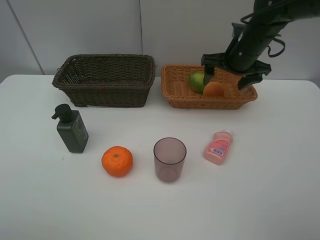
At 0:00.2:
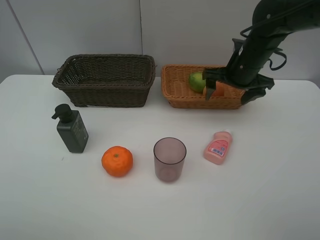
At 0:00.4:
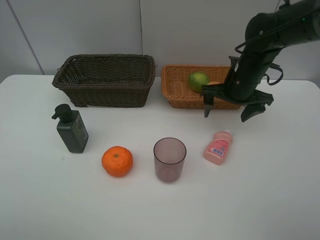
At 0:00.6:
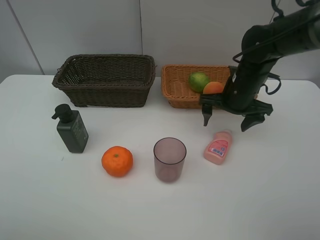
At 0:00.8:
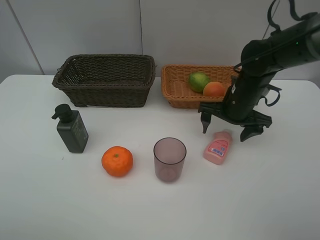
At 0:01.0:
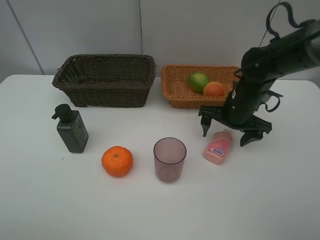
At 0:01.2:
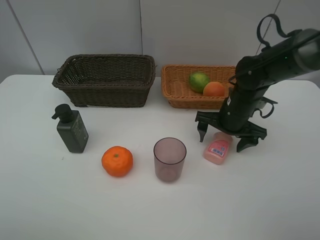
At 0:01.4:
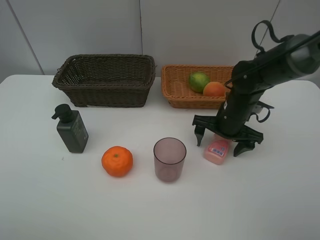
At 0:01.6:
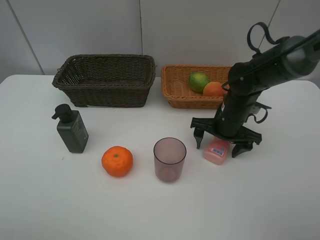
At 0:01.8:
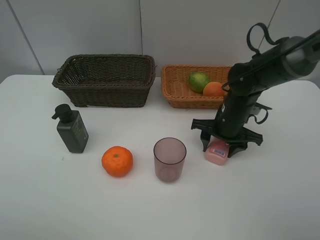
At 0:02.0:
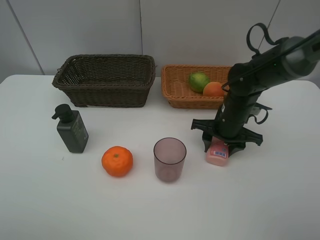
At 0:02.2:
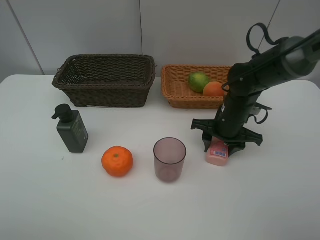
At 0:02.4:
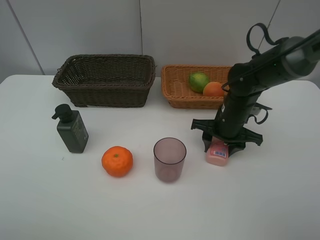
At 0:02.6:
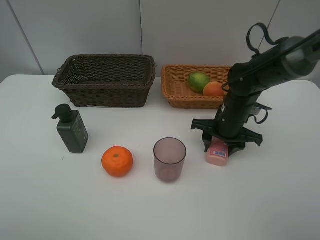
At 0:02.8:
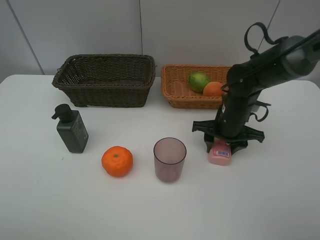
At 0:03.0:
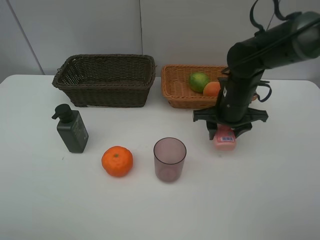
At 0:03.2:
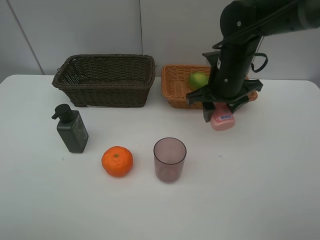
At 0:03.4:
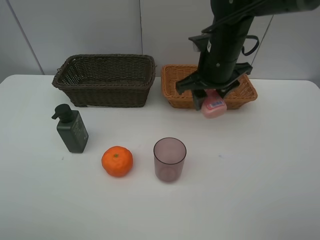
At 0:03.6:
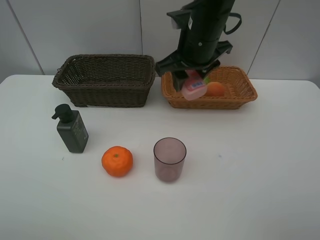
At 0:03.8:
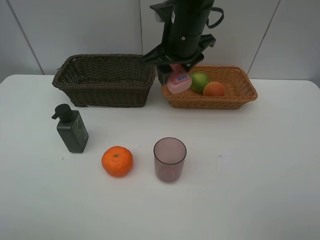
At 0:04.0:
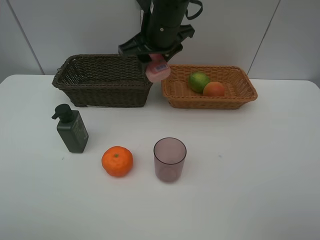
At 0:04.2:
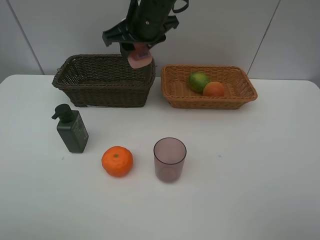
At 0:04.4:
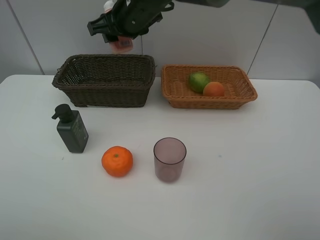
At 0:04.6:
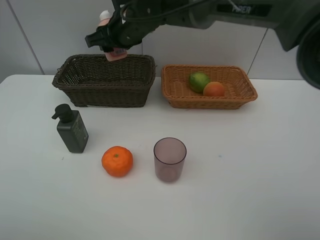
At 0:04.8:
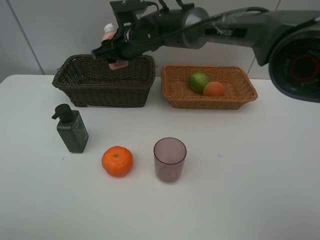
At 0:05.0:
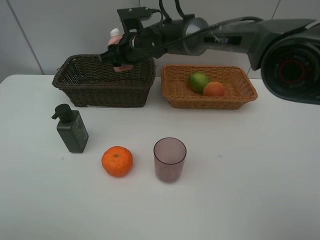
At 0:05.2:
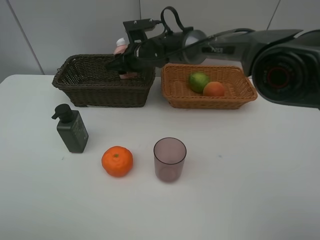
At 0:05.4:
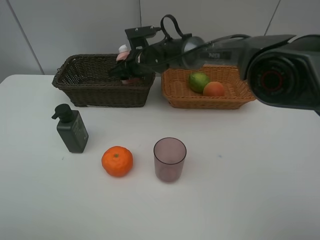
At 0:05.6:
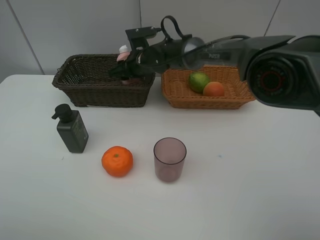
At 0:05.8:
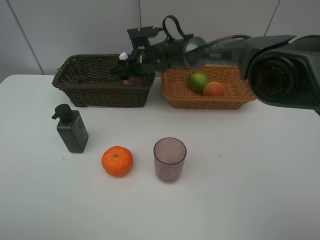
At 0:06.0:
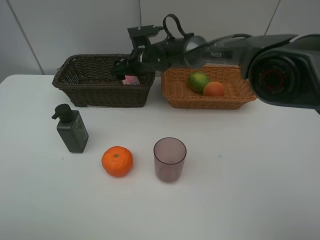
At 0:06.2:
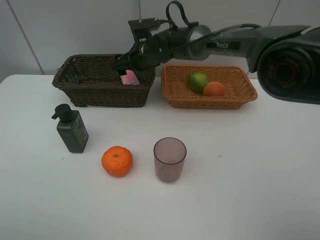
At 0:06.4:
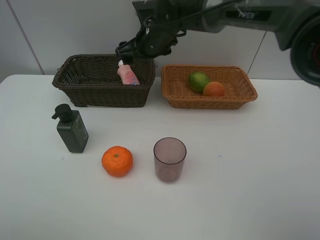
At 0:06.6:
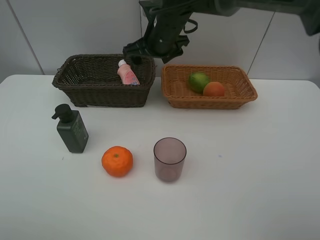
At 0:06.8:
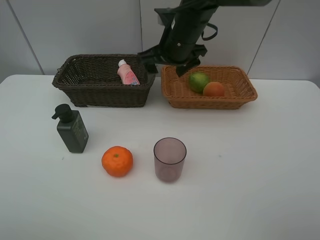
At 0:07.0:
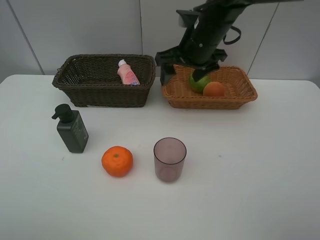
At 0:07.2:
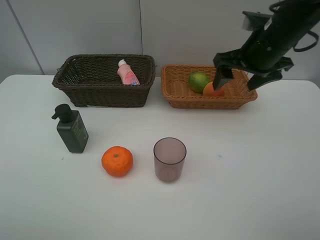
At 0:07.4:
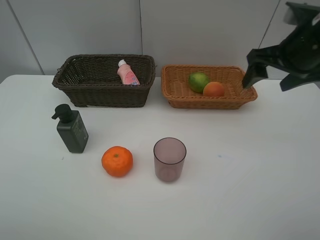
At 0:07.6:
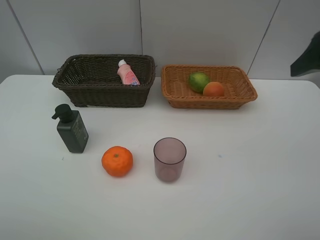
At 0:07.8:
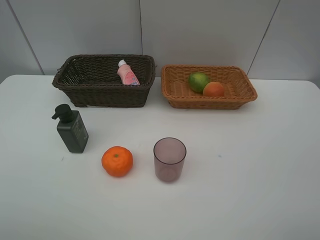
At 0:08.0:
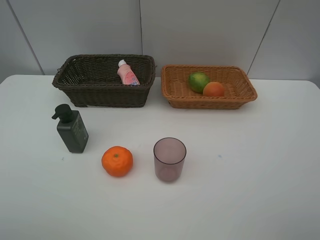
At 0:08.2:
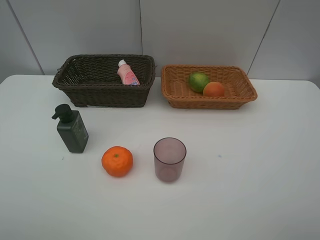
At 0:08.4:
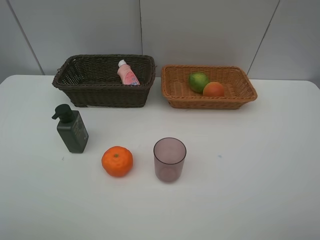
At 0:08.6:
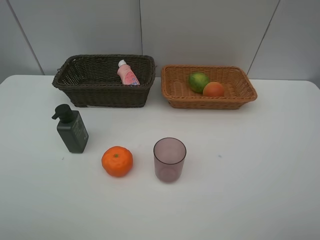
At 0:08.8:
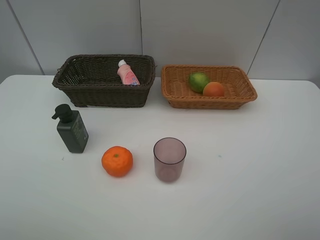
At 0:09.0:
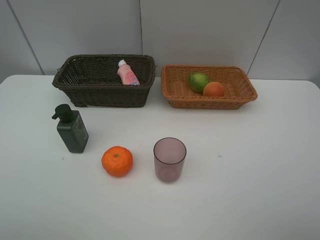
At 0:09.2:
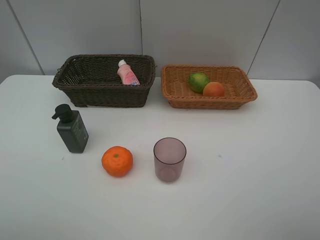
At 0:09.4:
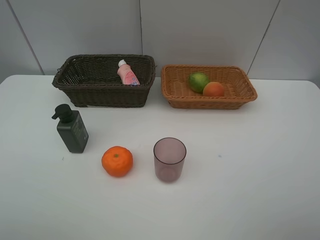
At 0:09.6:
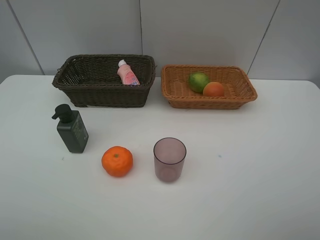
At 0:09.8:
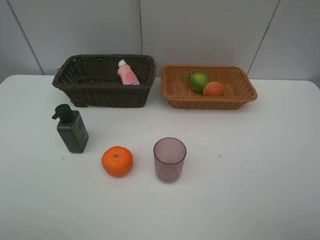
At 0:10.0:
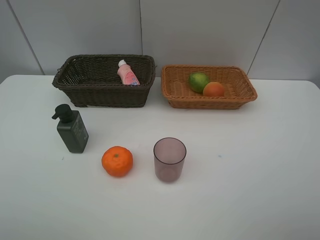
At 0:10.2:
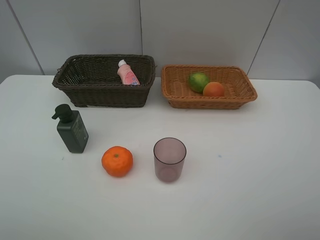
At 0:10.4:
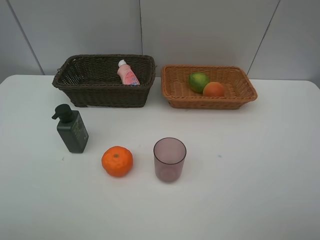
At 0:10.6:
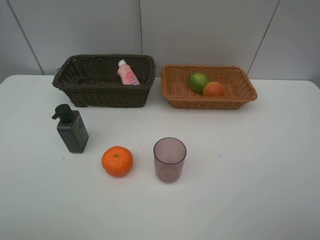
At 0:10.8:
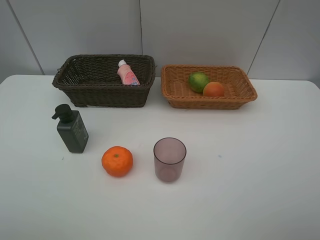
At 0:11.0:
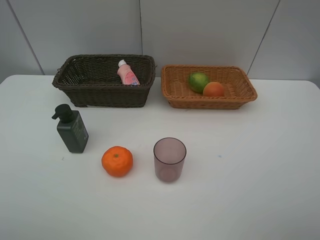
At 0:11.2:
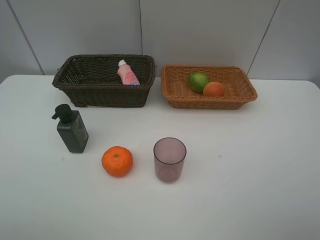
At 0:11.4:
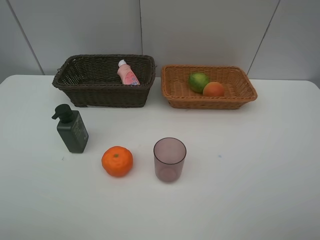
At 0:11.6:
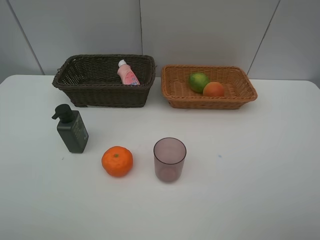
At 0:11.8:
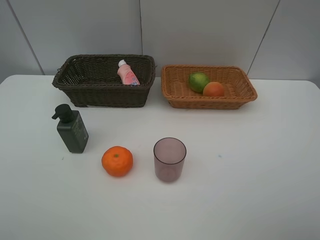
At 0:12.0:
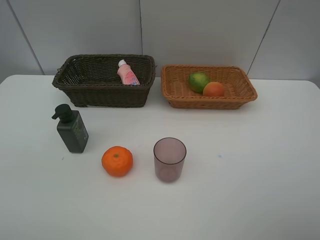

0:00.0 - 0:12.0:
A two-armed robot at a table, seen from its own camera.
Task of the whole recording: place multiple objects separately in different baskets.
0:00.0 - 0:01.6: The right gripper goes approximately 15 cm downward and backward.
0:01.6 - 0:03.0: The right gripper is displaced upward by approximately 5 cm, and closes.
0:03.0 - 0:04.4: The right gripper heads to the left and upward, covering about 25 cm.
0:04.4 - 0:06.0: The right gripper travels downward and forward by some 15 cm, and opens up.
0:06.0 - 0:07.6: The right gripper travels to the right, backward and upward by about 50 cm.
0:07.6 - 0:09.0: The right gripper goes approximately 20 cm backward.

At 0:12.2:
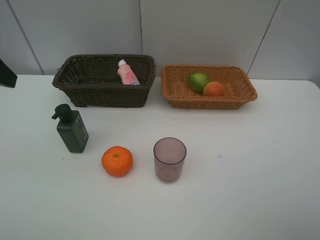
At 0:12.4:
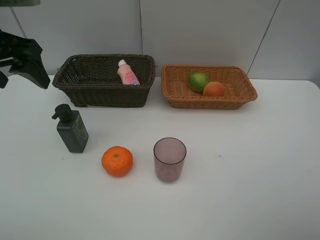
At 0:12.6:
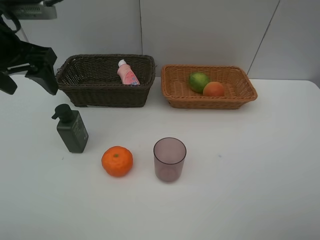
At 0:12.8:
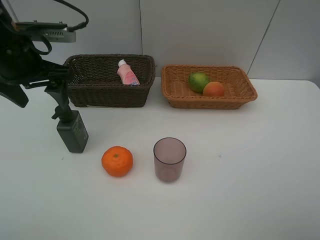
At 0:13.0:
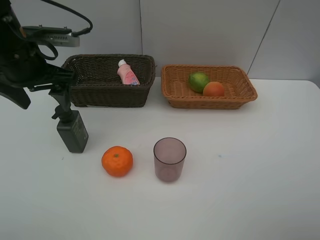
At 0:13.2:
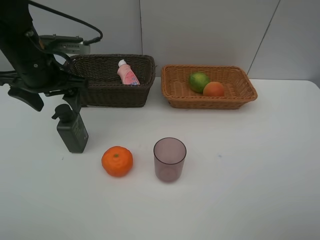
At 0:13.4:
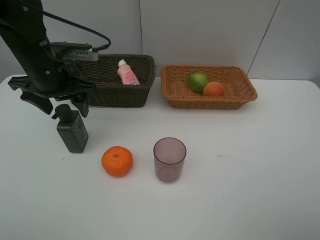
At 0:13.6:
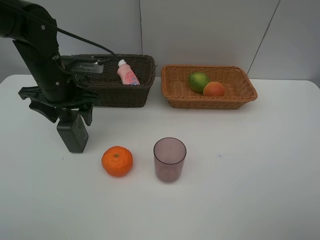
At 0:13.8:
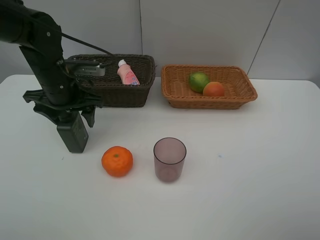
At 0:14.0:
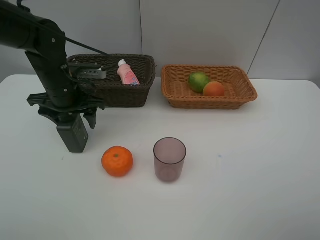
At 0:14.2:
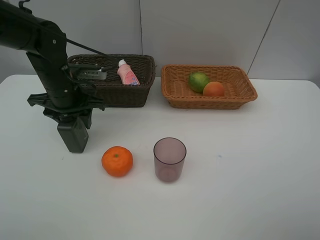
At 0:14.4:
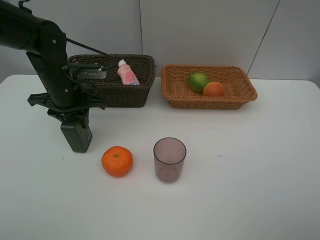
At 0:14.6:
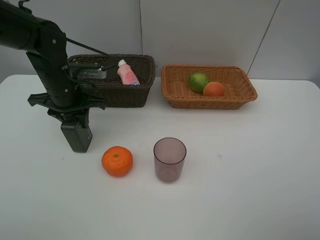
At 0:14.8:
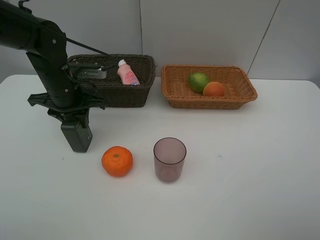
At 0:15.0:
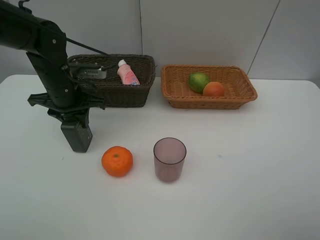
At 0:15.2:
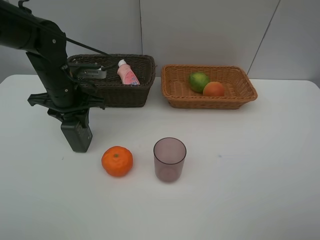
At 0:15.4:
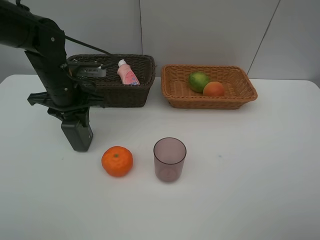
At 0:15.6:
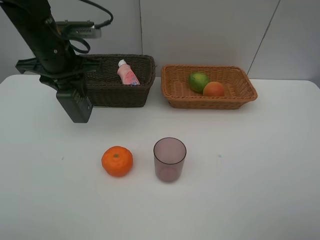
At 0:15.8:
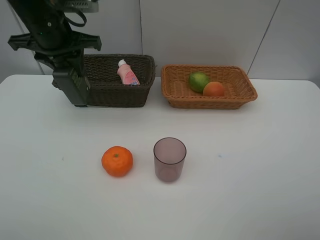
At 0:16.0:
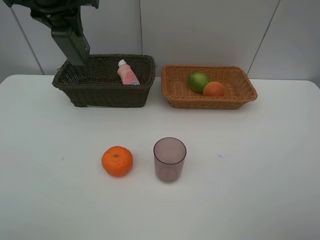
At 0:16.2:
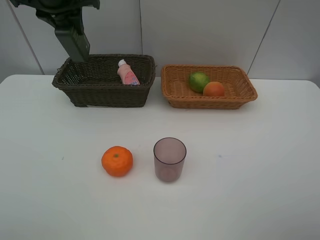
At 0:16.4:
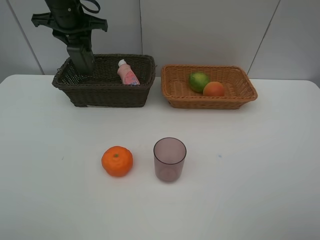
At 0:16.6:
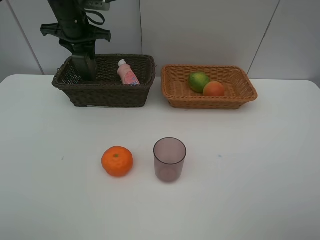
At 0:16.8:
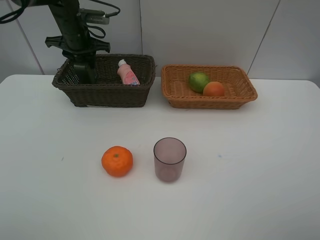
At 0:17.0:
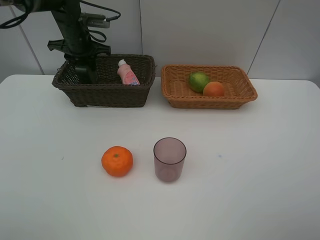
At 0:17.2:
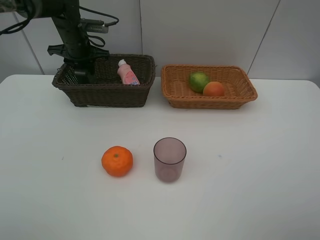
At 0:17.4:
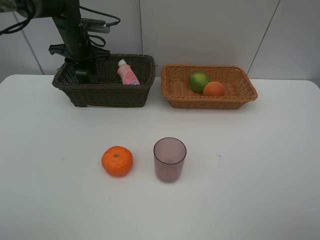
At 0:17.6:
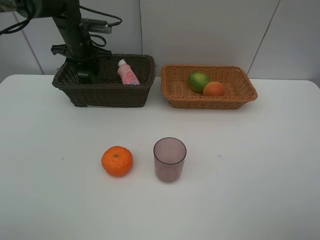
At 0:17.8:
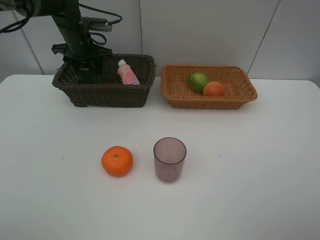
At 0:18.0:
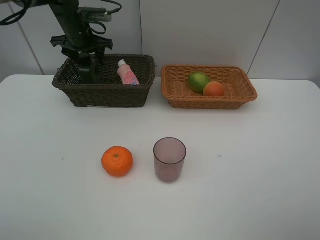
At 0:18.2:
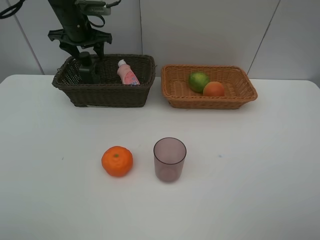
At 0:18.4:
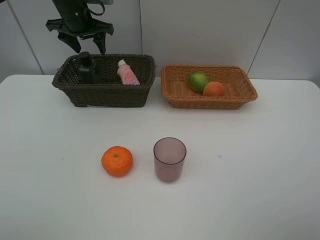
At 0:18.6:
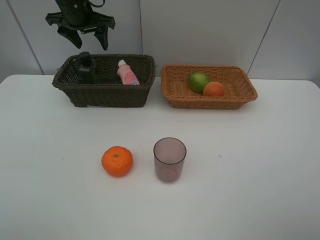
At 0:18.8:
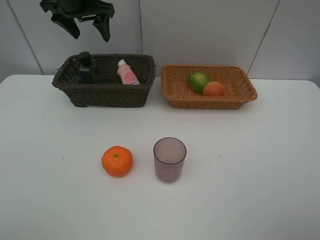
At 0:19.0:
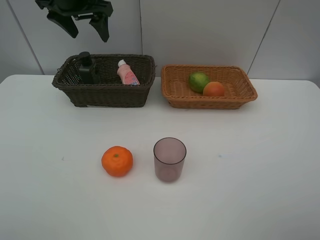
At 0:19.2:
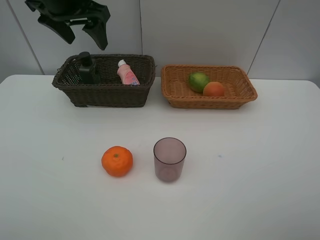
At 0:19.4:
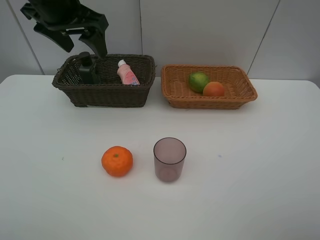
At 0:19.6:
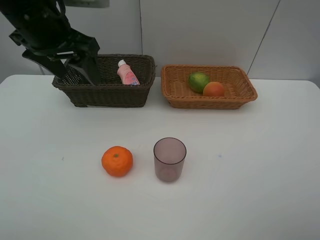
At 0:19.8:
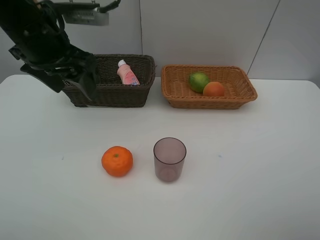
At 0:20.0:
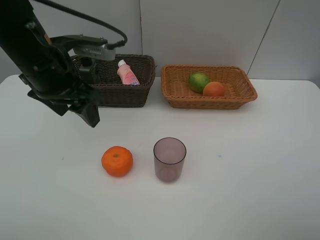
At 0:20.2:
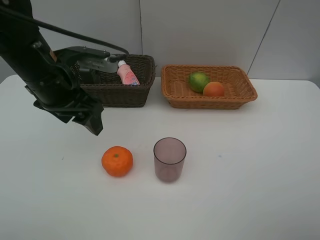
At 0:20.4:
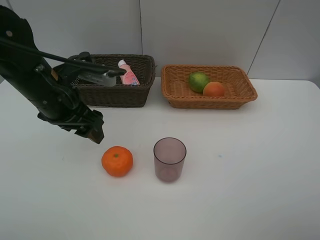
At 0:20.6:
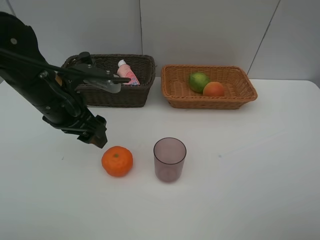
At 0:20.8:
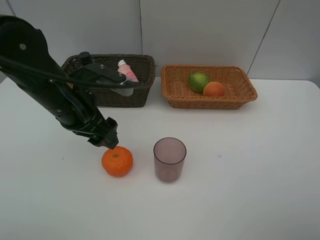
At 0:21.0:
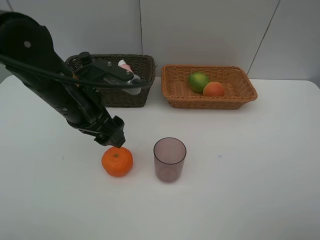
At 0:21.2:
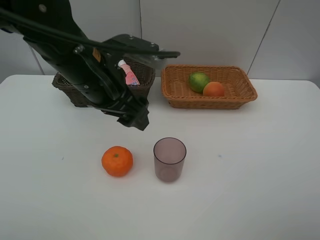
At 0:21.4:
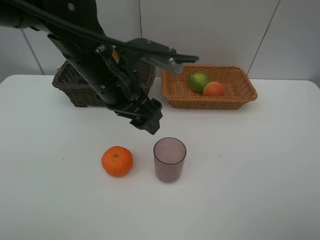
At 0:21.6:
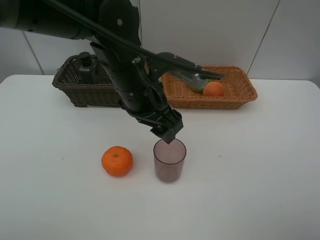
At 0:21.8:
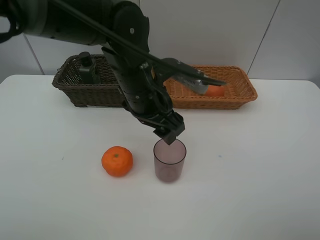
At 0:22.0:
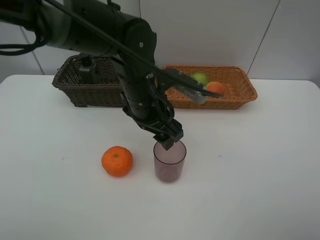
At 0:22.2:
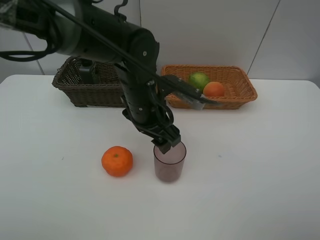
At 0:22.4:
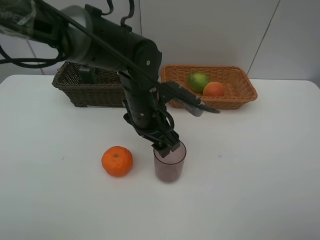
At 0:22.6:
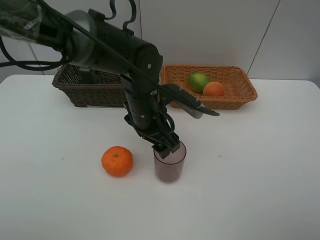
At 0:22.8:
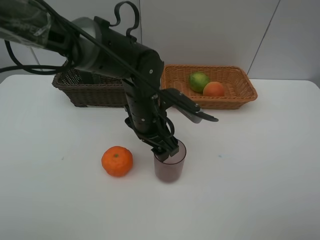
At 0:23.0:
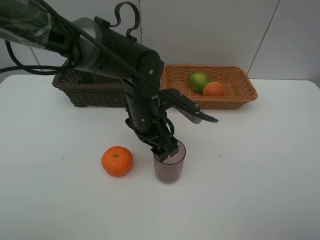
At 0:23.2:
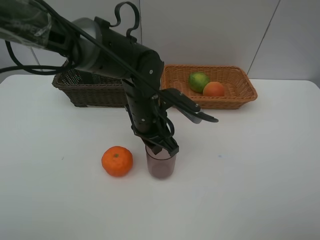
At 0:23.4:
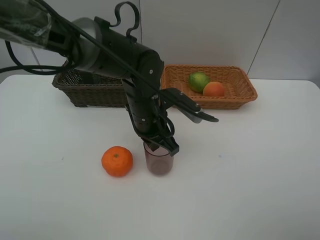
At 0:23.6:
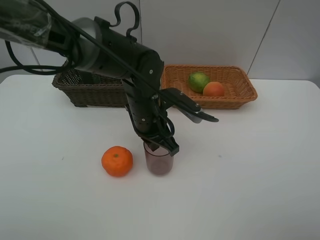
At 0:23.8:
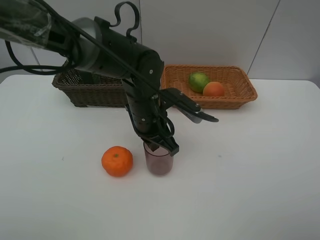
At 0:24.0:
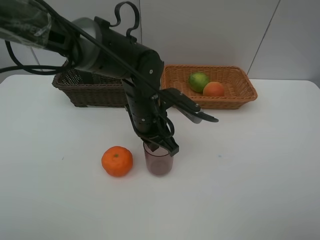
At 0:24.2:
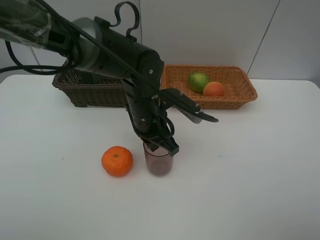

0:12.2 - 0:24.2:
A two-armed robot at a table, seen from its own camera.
Task of the whole recording: place multiple objects separately in different baskets.
0:12.2 - 0:13.8: The left gripper shifts about 20 cm downward, forward and to the right.
0:13.8 - 0:15.2: The left gripper closes.
0:15.2 - 0:16.6: The left gripper is displaced forward and upward by roughly 15 cm.
0:16.6 - 0:18.2: The left gripper opens up.
0:18.2 - 0:19.8: The left gripper goes some 20 cm backward.
0:19.8 - 0:21.2: The left gripper shifts about 10 cm to the right.
0:21.2 - 0:22.6: The left gripper moves downward and to the right, some 10 cm.
0:22.6 - 0:24.2: The left gripper closes up.
